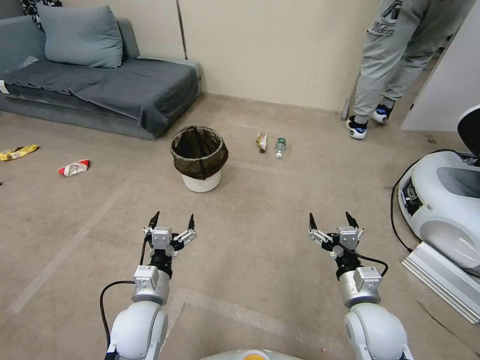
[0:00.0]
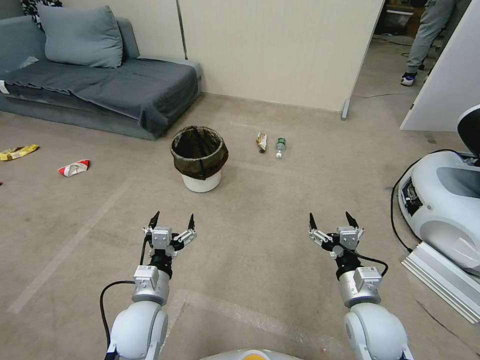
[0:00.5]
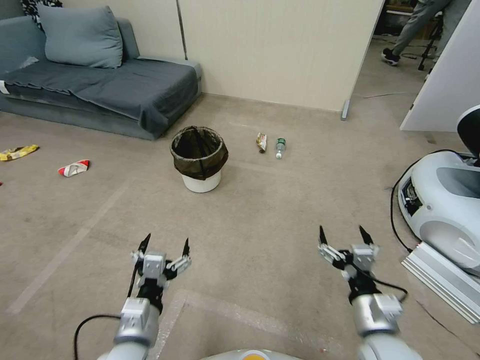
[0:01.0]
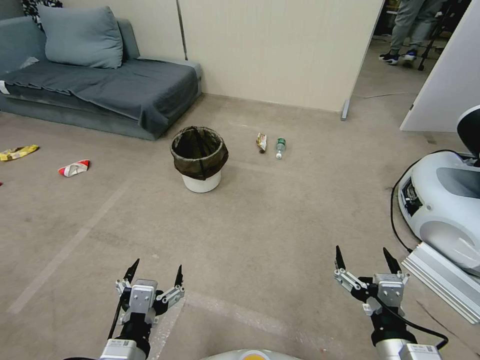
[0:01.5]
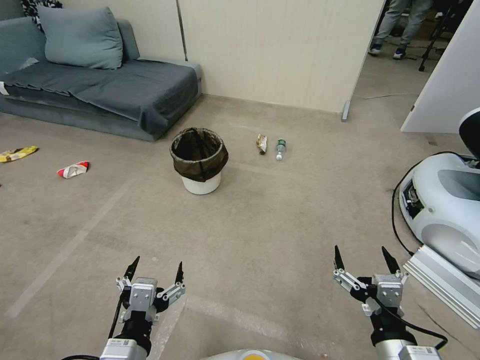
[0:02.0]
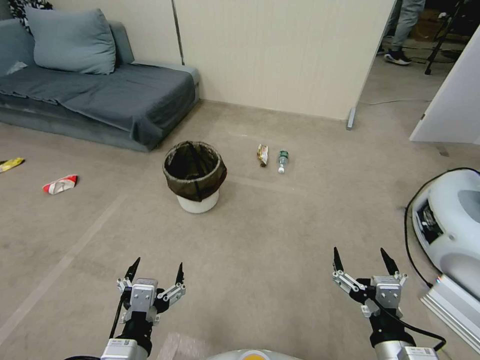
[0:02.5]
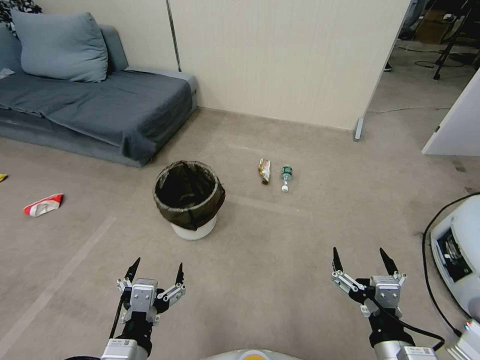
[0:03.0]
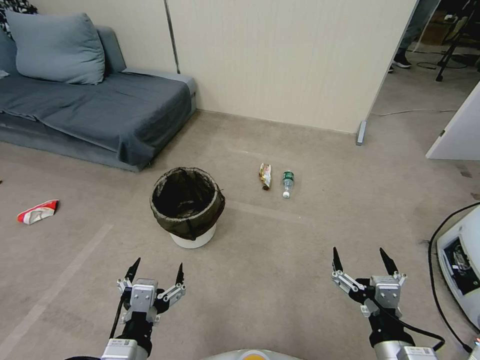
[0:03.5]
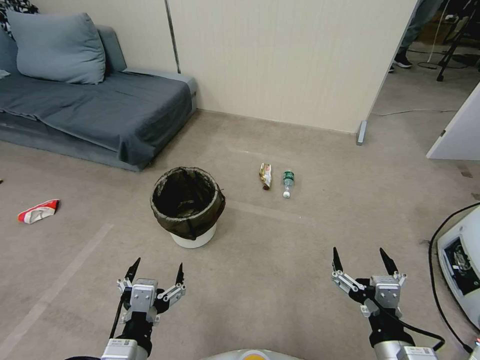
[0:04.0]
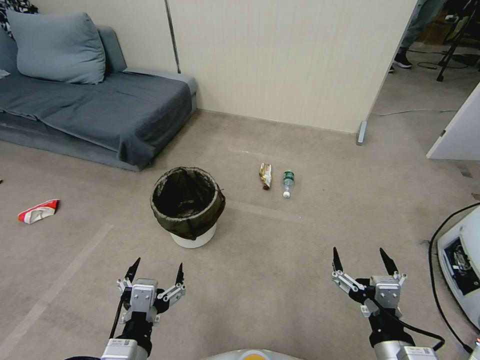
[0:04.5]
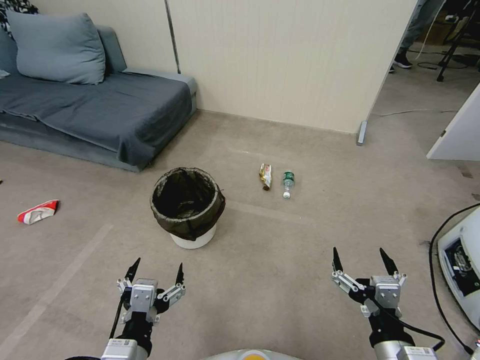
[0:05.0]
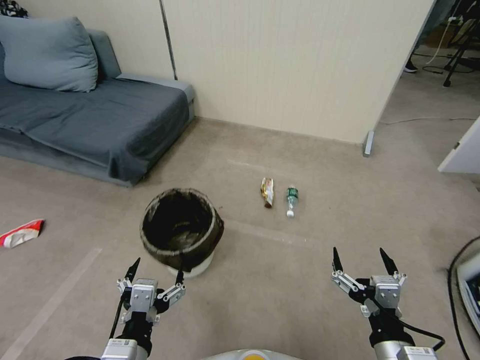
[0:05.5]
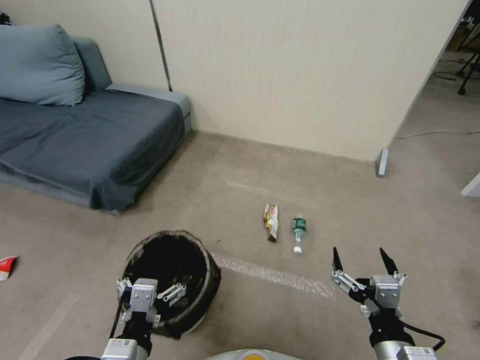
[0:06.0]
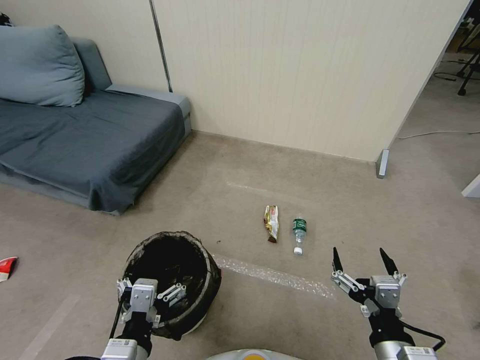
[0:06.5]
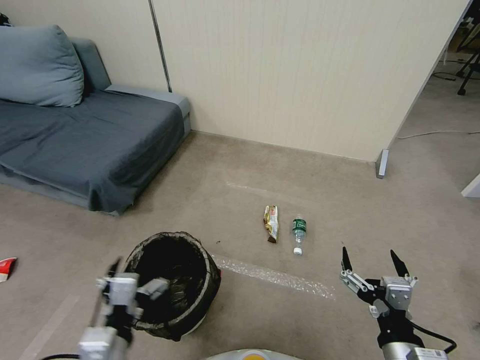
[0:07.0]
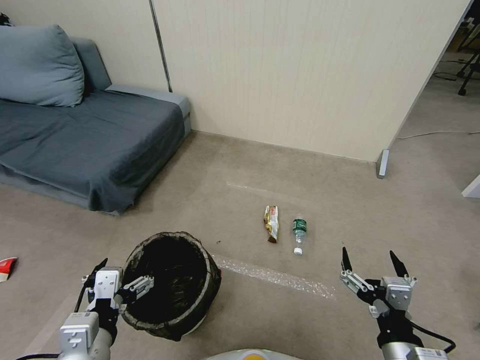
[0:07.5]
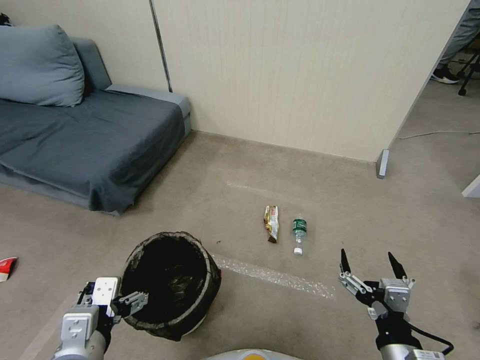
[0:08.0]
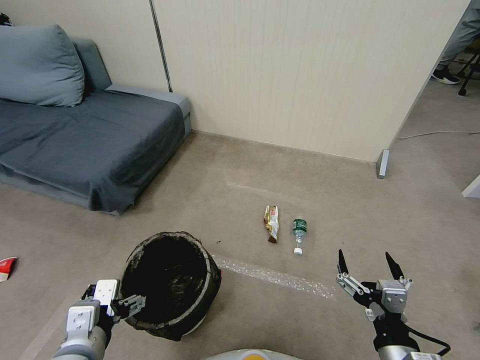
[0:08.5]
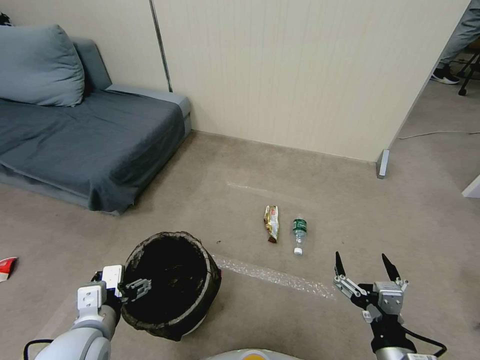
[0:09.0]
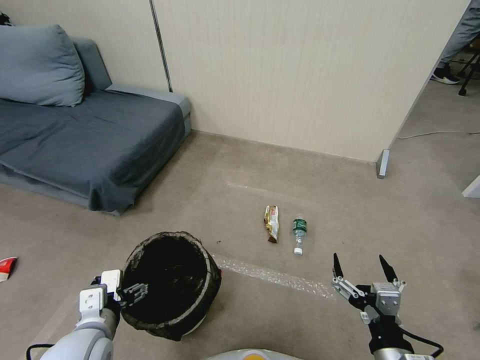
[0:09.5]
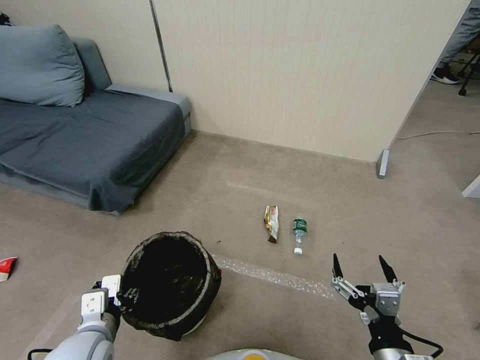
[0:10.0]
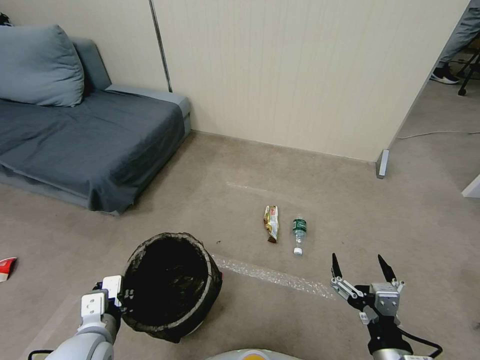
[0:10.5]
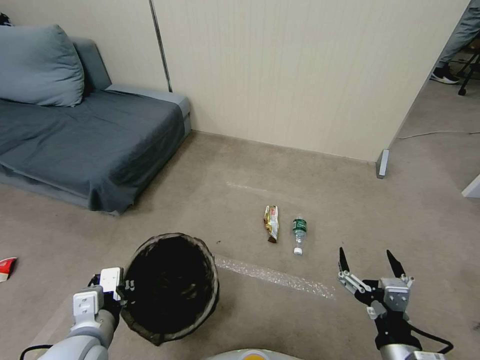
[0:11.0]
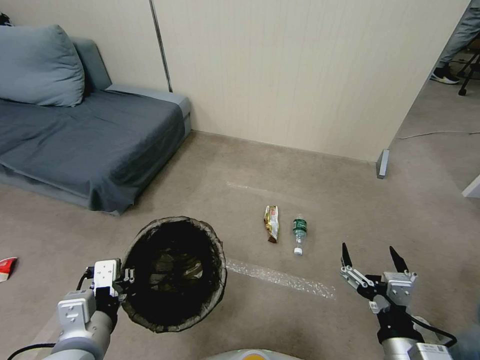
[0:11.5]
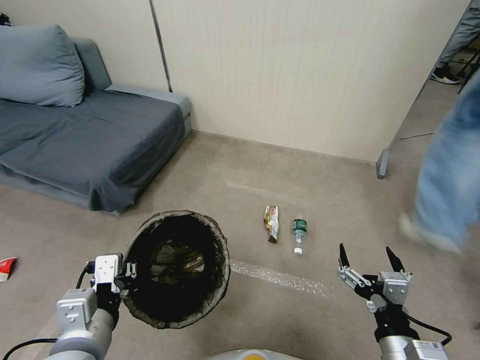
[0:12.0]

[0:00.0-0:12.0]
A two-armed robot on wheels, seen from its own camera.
Task of the whole recording: Pick up the trash bin, then pick up the garbage from the floor and place it into the trash bin.
6.0 to 8.0 s: The left gripper goes roughly 5 cm to the left.
8.0 to 10.0 s: The left gripper travels downward and forward by approximately 10 cm, and closes up.
10.0 to 12.0 s: The left gripper moves upward, about 10 cm, and closes up.

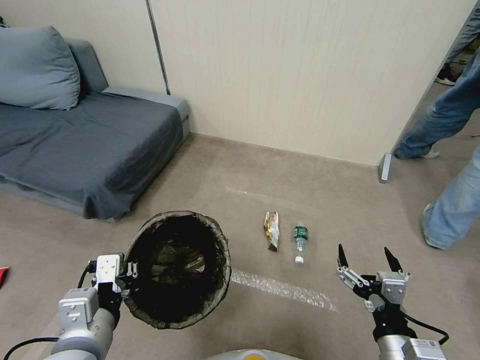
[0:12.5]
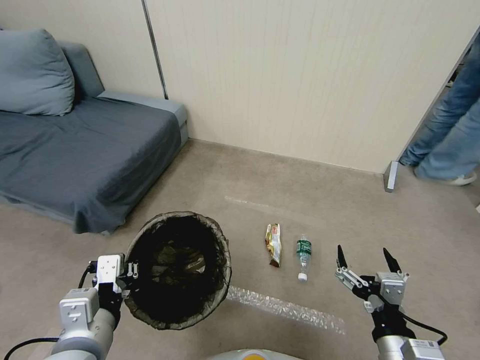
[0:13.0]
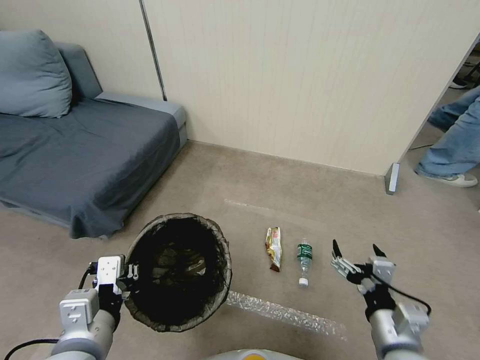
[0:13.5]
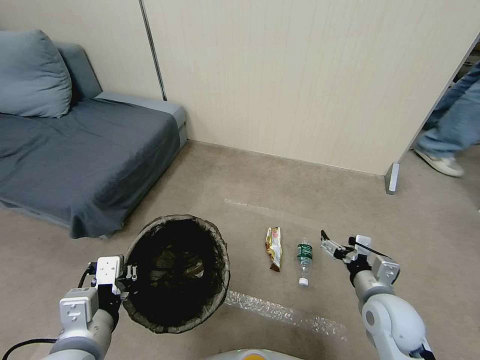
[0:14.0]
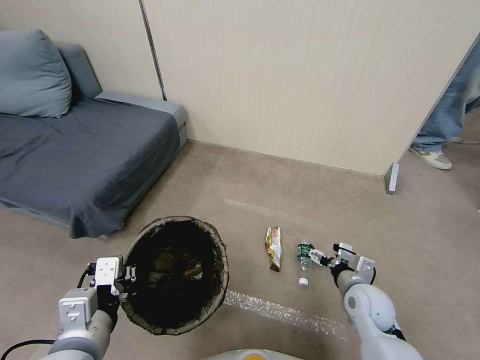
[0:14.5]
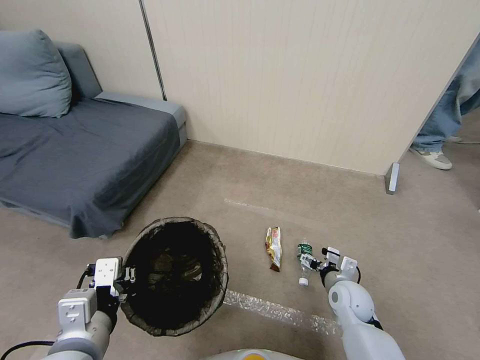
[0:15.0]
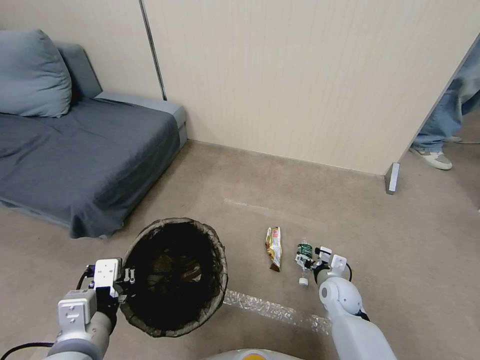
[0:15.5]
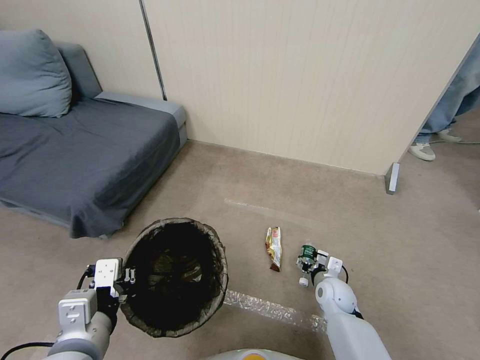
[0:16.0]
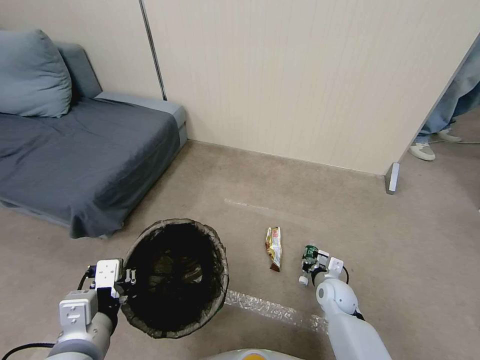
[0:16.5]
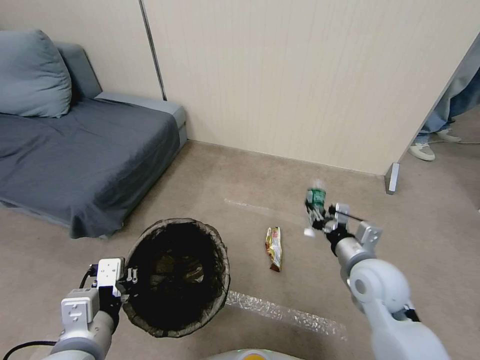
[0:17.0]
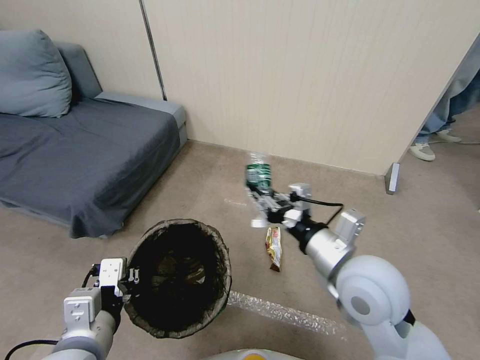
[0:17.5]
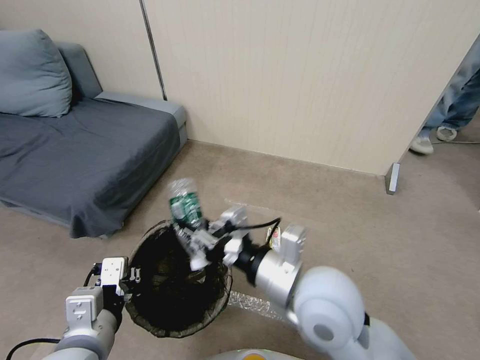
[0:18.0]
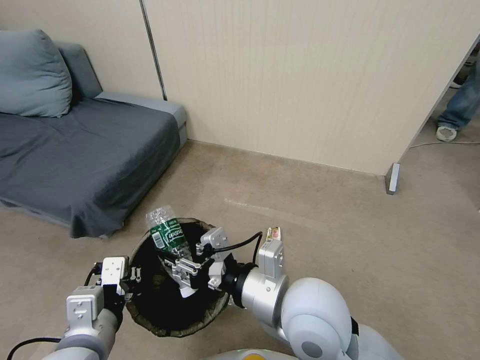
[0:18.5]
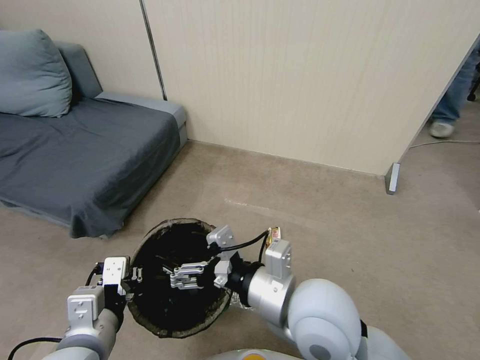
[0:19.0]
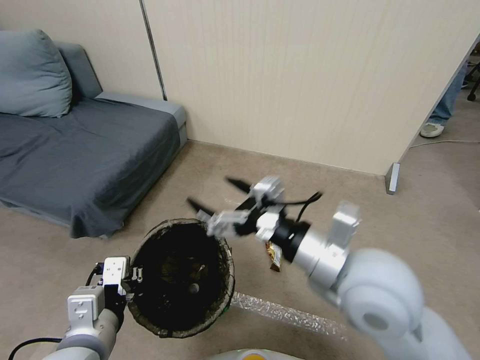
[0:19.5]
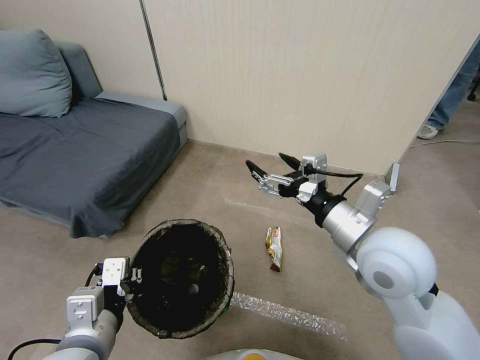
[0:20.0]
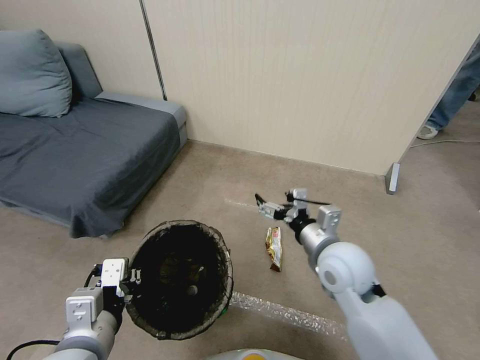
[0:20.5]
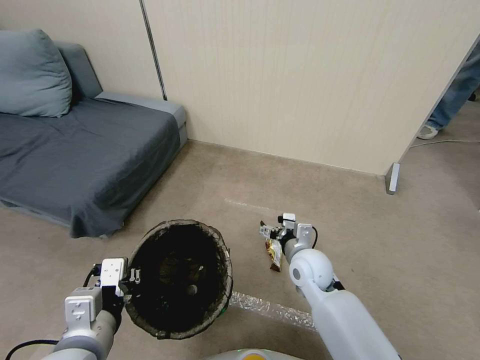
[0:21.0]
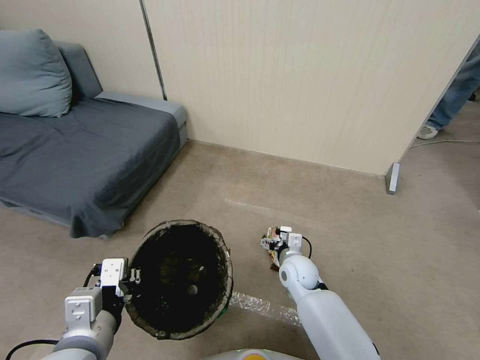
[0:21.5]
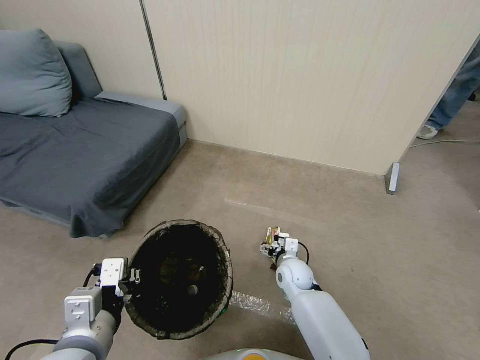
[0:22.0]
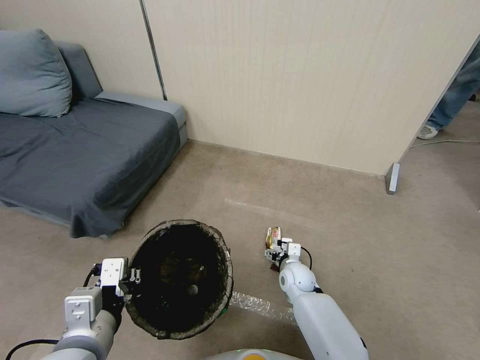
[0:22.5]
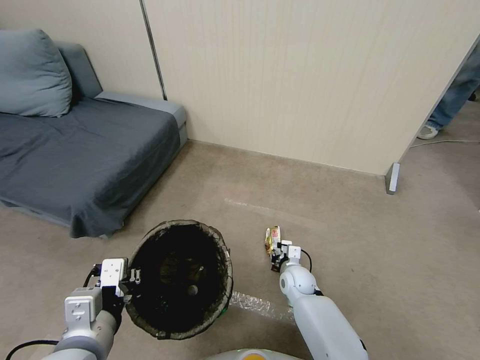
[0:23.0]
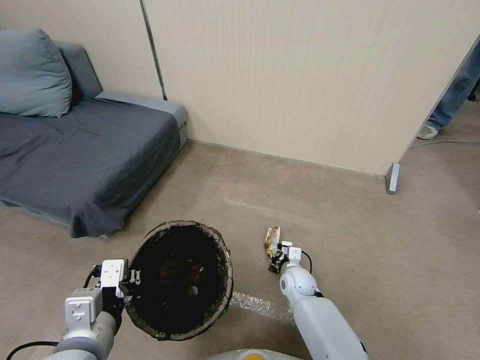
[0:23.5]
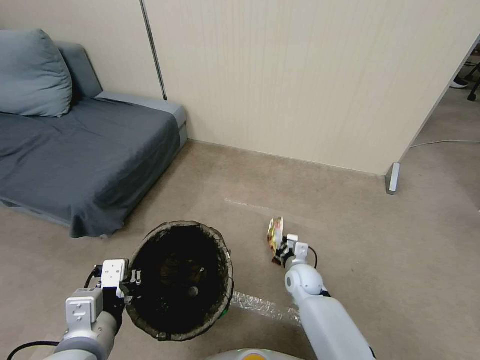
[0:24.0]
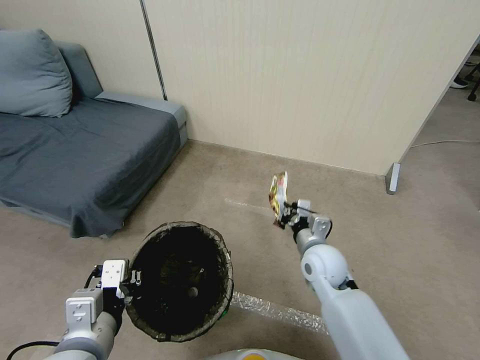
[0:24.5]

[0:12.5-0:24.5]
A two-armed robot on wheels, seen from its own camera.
Task of the whole recording: Pick up the trash bin, then pick up the garbage from the floor and place it into the trash bin.
12.5 to 14.5 s: The right gripper moves forward and downward, approximately 20 cm.
14.5 to 16.5 s: The right gripper travels downward by approximately 10 cm, and closes its fingers.
16.5 to 18.5 s: The right gripper moves upward and to the left, approximately 35 cm.
18.5 to 20.5 s: The right gripper is displaced to the right, forward and downward by about 15 cm, and opens up.
20.5 to 22.5 s: The right gripper heads downward, covering approximately 25 cm.
22.5 to 24.5 s: The right gripper goes roughly 15 cm upward, and closes.

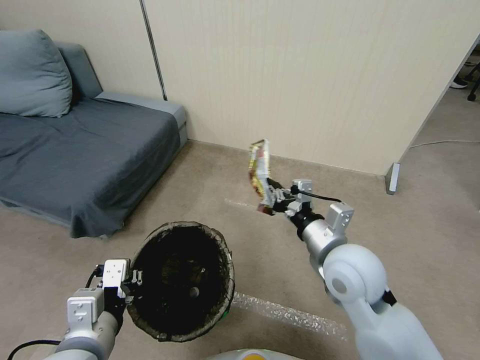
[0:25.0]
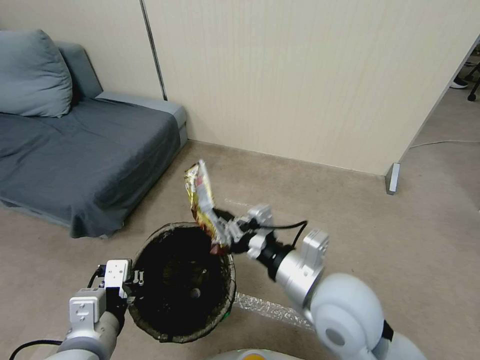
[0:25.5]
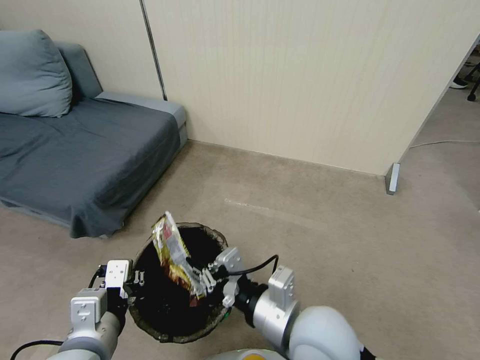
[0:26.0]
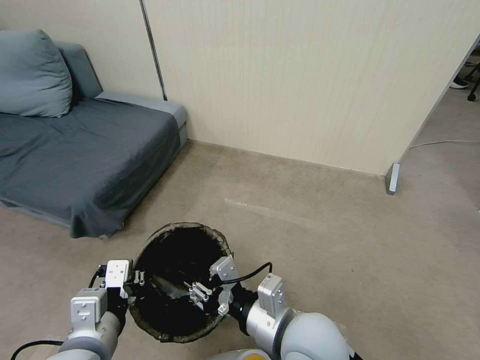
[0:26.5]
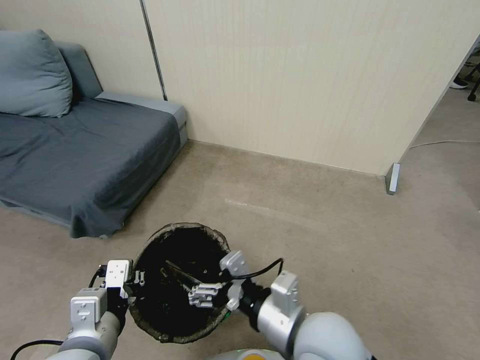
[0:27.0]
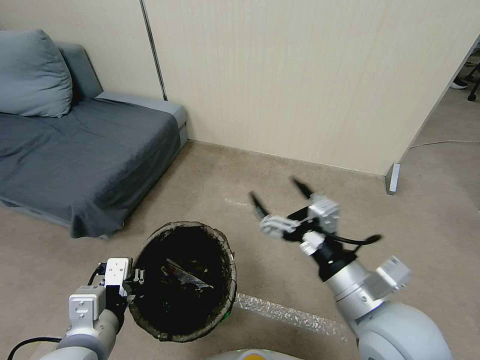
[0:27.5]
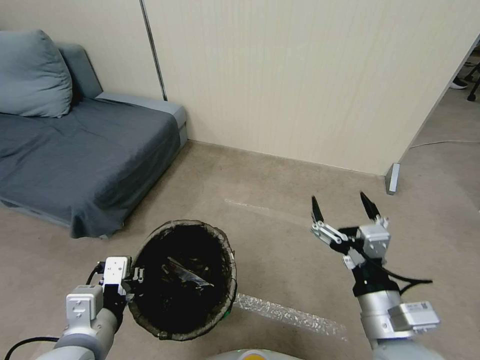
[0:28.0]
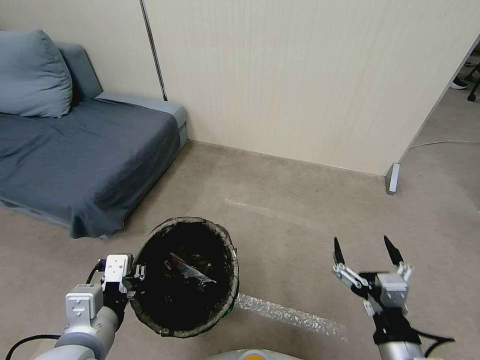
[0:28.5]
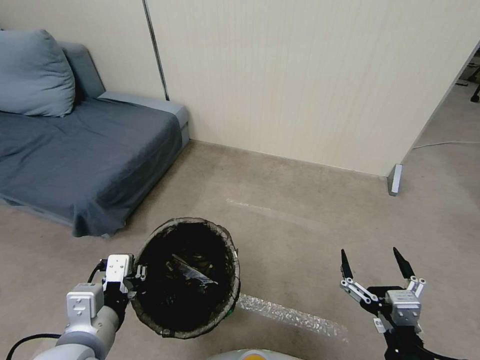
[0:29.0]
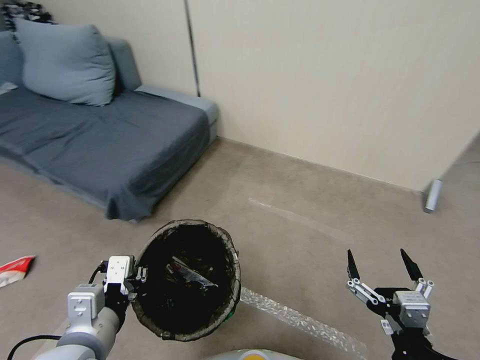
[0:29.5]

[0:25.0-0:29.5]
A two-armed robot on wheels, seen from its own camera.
Task of the whole recording: Pick up the trash bin, then pick up the garbage from the floor and place it into the trash bin.
25.0 to 27.0 s: The right gripper moves backward and to the left, approximately 15 cm, and opens.
27.0 to 29.5 s: The right gripper moves to the right, backward and downward, roughly 20 cm.
